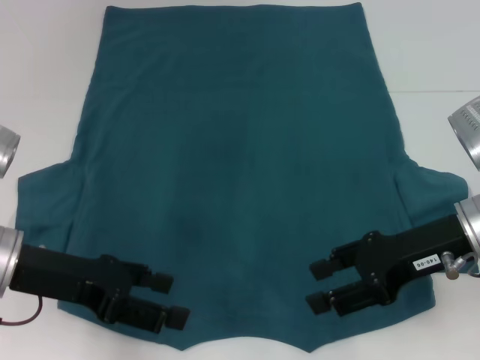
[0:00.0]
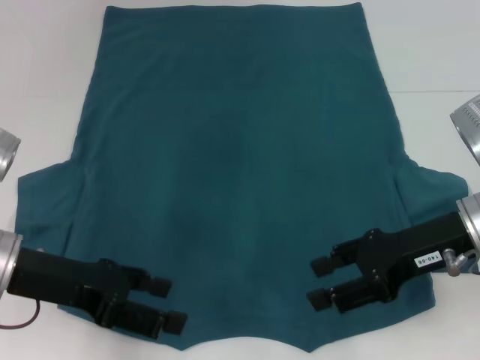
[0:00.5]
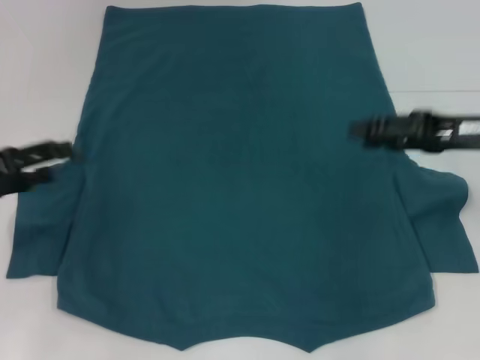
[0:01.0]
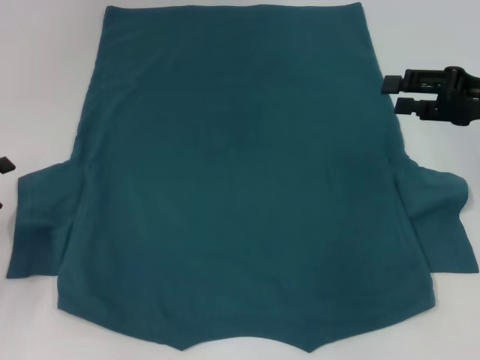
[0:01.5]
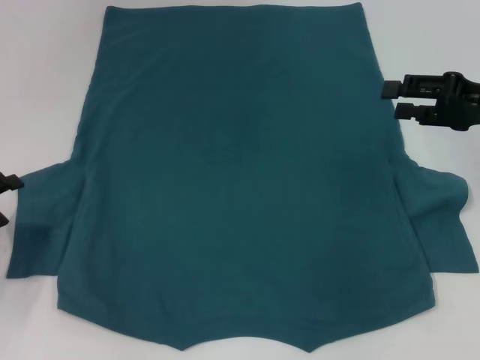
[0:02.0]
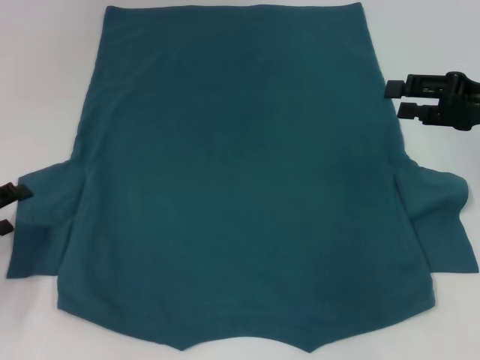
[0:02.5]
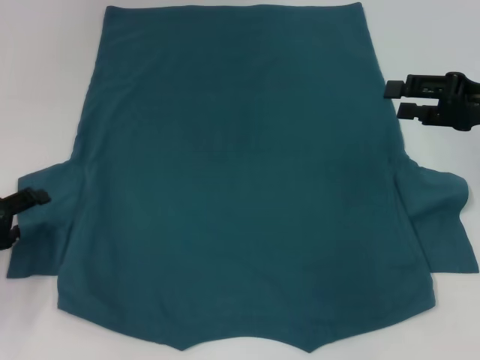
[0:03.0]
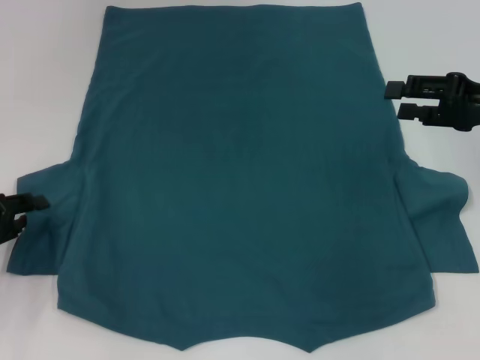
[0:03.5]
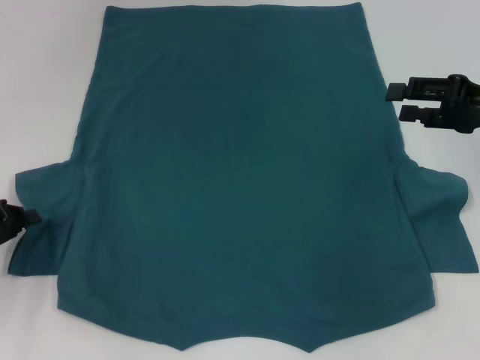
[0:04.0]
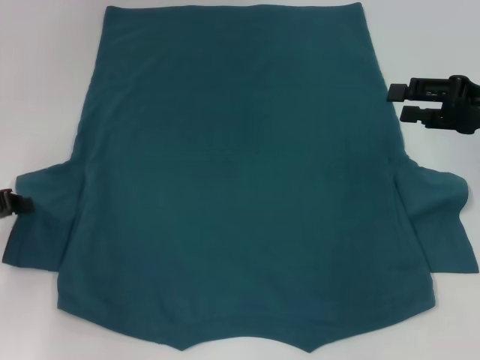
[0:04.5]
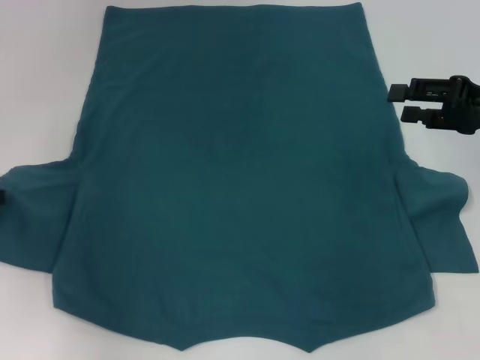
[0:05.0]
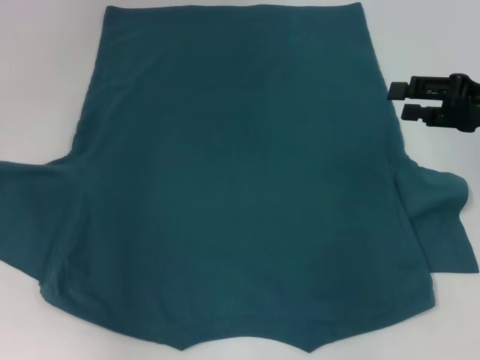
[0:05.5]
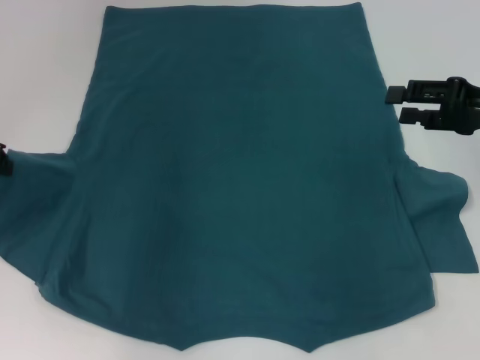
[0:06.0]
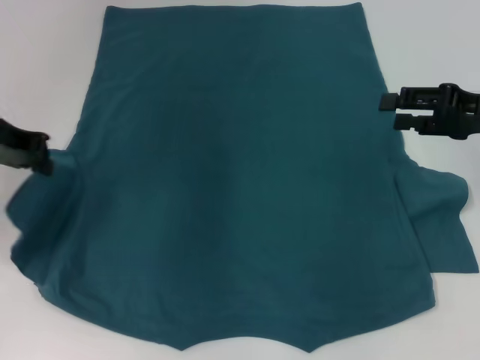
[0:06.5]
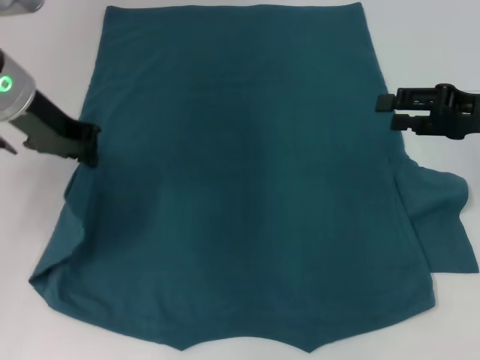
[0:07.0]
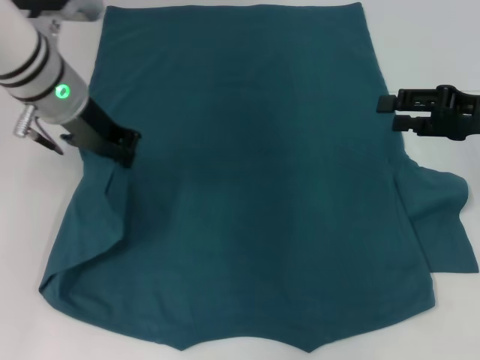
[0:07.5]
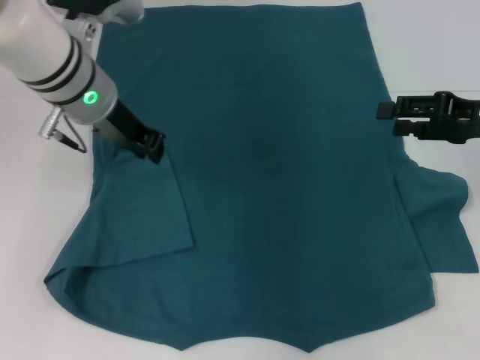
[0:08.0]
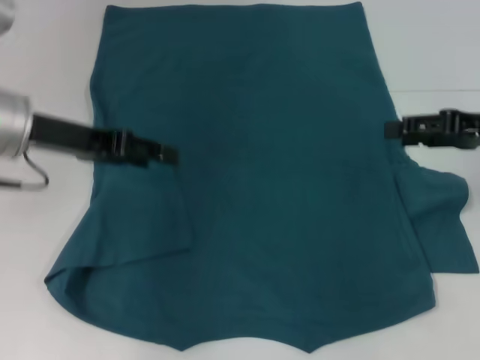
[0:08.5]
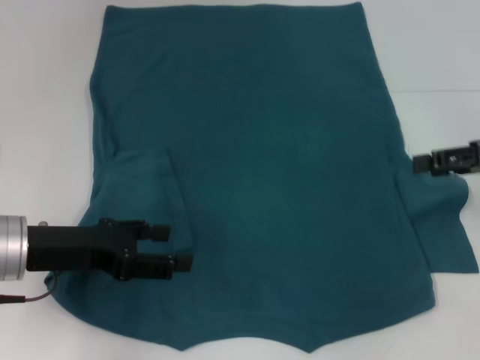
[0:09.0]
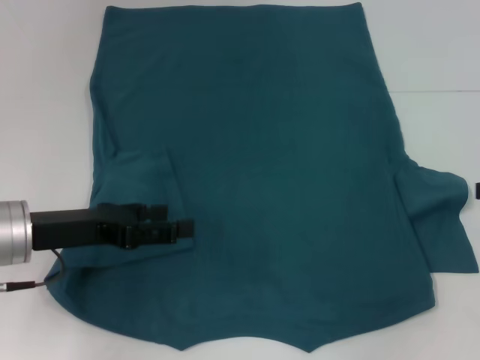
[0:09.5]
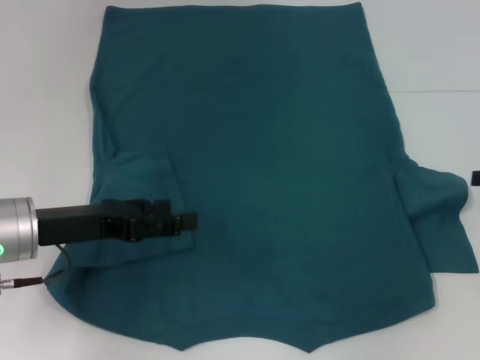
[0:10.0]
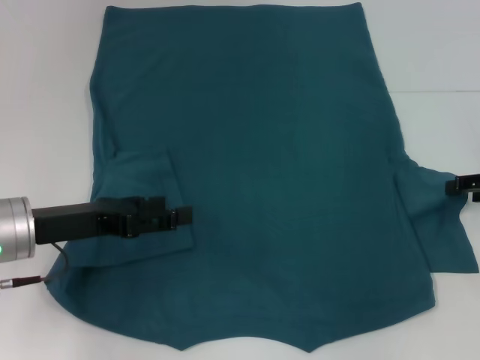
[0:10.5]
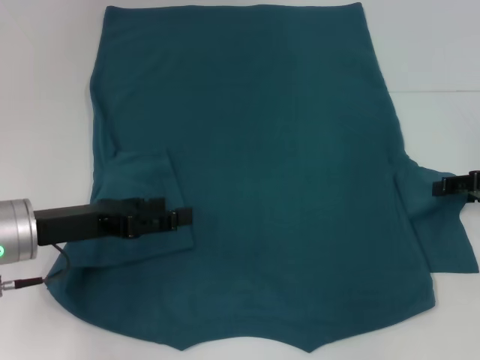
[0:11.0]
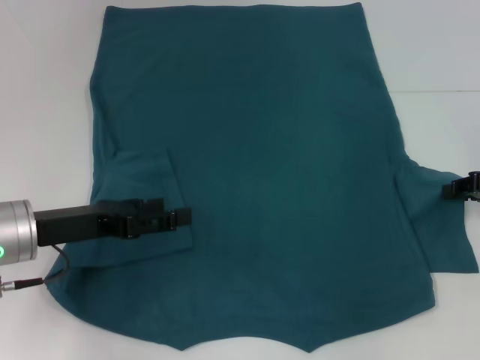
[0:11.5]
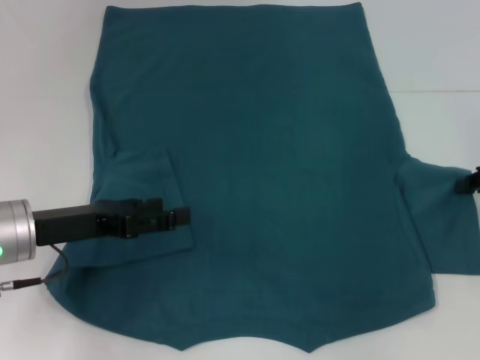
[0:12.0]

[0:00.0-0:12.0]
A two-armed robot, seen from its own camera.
Step, 0:00.0 to 0:07.5: Fold the bottom left sleeve with your left hand.
0:00.0 to 0:02.0: The right gripper goes approximately 10 cm to the right and forward; the left gripper heads to the left and downward, covering about 15 cm.
0:02.0 to 0:04.0: The left gripper closes up.
0:04.0 to 0:06.0: The left gripper moves upward and forward, approximately 15 cm.
0:06.0 to 0:08.0: The left gripper heads to the right, covering approximately 15 cm.
0:08.0 to 0:10.0: The right gripper heads to the right, covering approximately 10 cm; the left gripper goes about 15 cm backward, downward and to the left, and opens.
0:10.0 to 0:12.0: The right gripper closes.

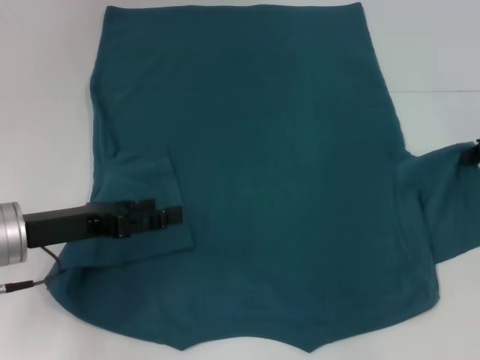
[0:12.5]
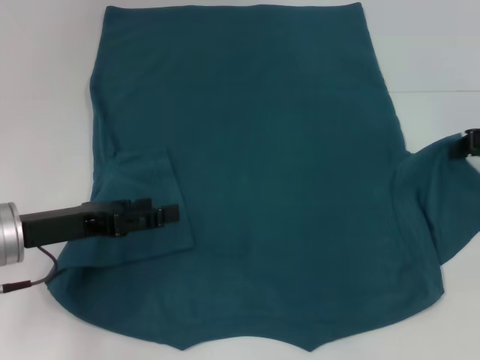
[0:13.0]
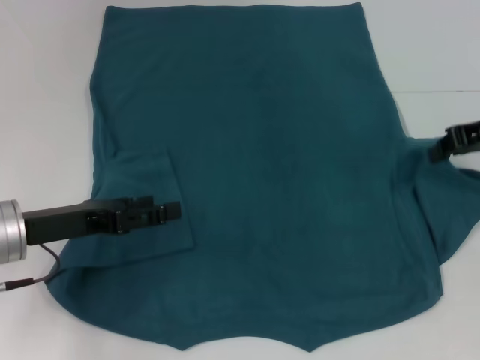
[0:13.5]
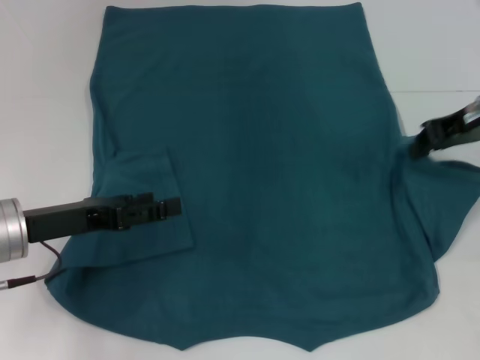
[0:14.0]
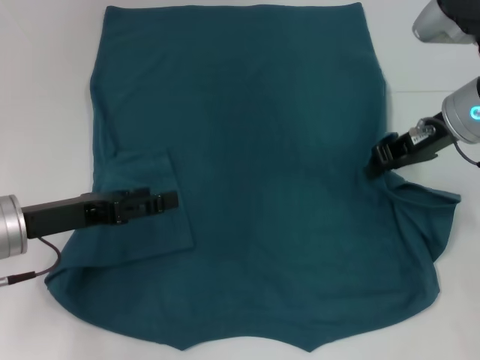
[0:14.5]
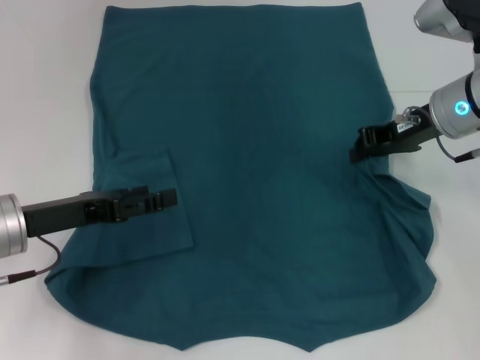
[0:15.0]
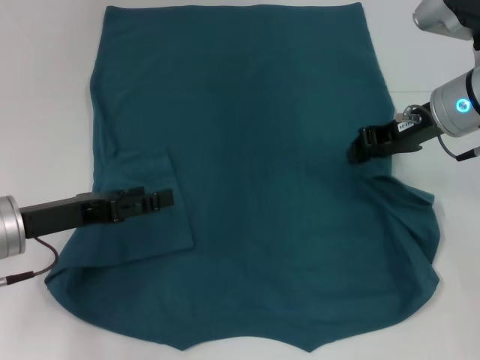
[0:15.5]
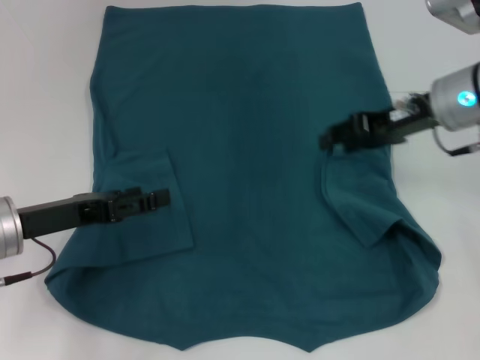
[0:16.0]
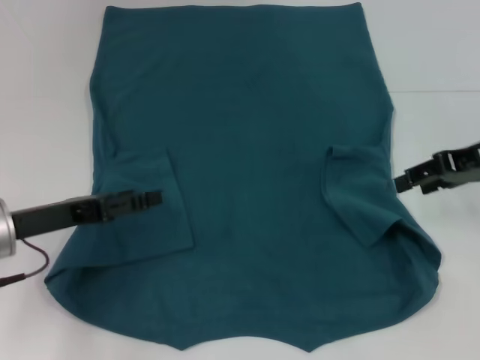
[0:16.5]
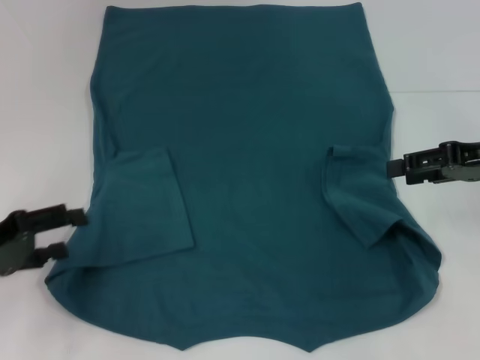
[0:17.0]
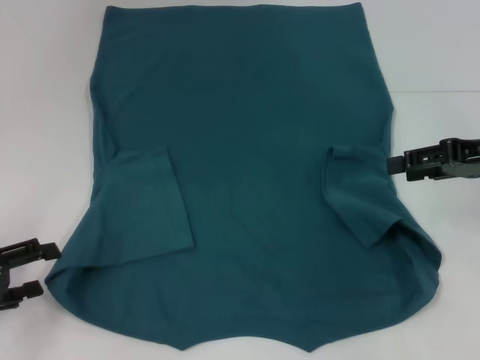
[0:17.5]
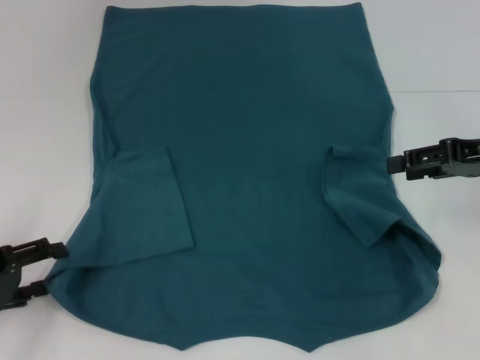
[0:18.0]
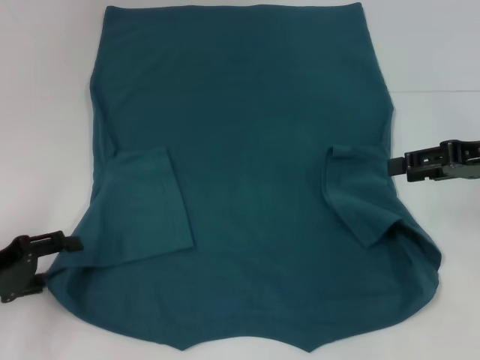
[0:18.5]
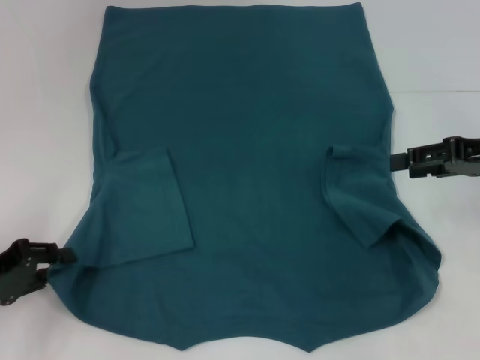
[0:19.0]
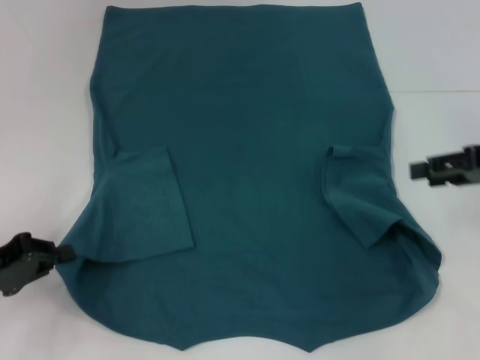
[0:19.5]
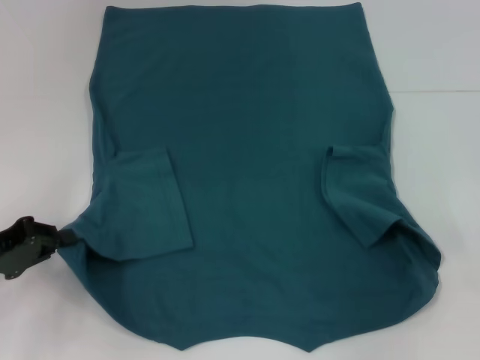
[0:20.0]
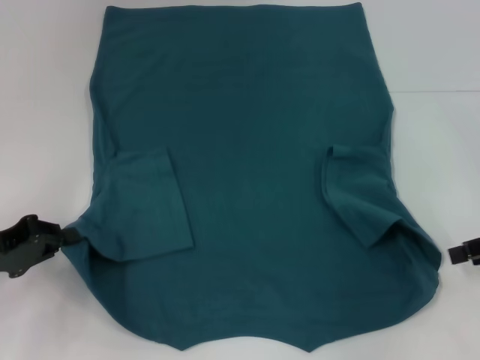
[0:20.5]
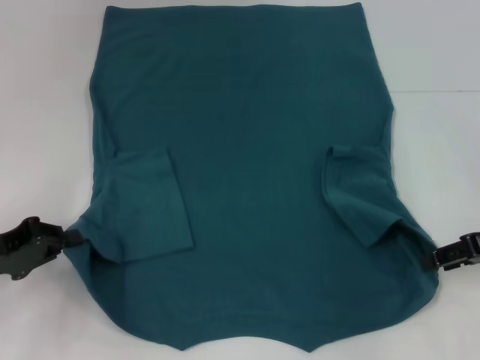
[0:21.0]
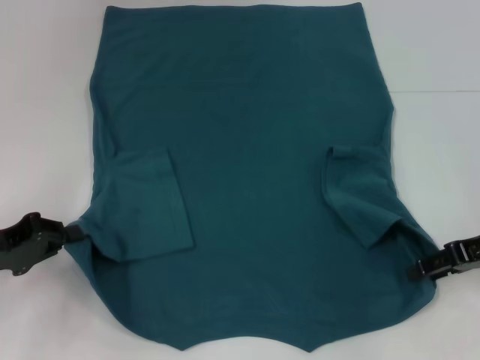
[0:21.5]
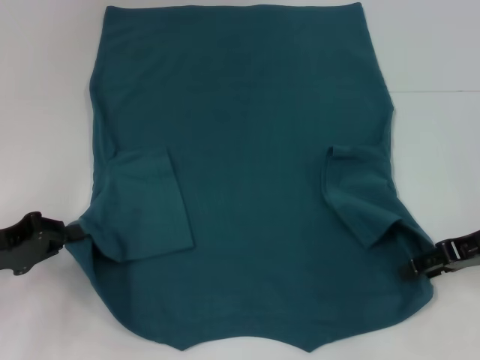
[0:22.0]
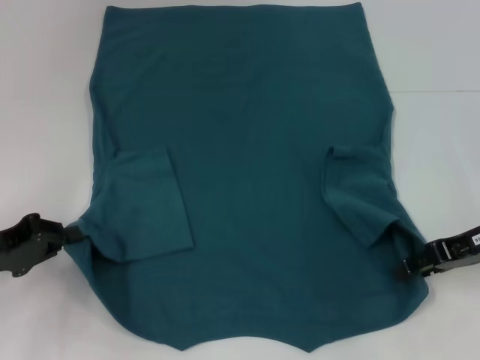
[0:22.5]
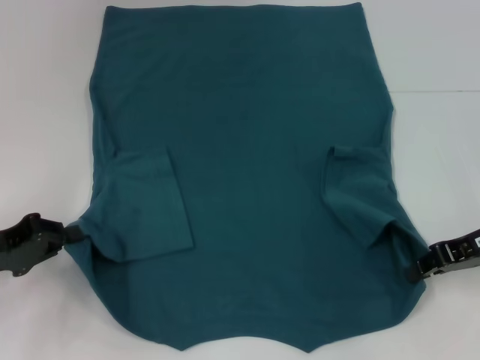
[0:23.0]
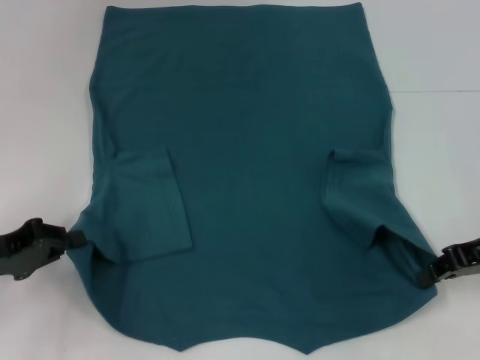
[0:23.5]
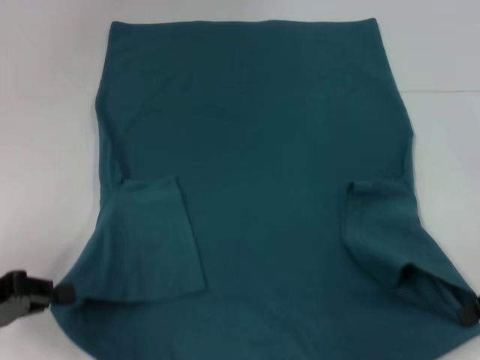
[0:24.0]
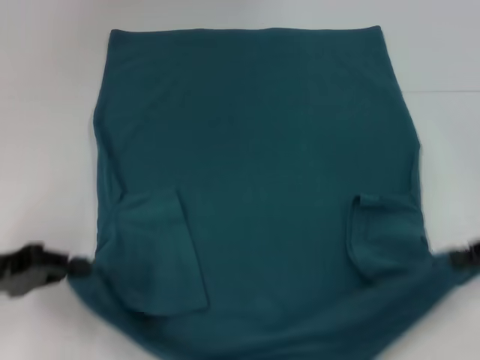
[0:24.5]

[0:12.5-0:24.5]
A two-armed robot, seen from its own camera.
Step, 0:12.5 to 0:15.5: Fold the bottom right sleeve to the right.
Step, 0:16.0 to 0:19.0: Grab the bottom left corner with your left hand.
Step, 0:19.5 to 0:22.5: Grab the bottom right corner with your right hand.
0:12.5 to 0:14.5: The right gripper goes approximately 10 cm to the left.
0:14.5 to 0:16.5: The right gripper moves to the right, about 5 cm, and opens up.
0:16.5 to 0:18.5: The left gripper heads to the left, covering some 5 cm.
0:18.5 to 0:20.5: The left gripper closes up; the right gripper changes place by roughly 5 cm.
0:20.5 to 0:22.5: The right gripper travels to the left by some 5 cm.
0:22.5 to 0:24.5: The right gripper is displaced to the right by some 5 cm, and closes.

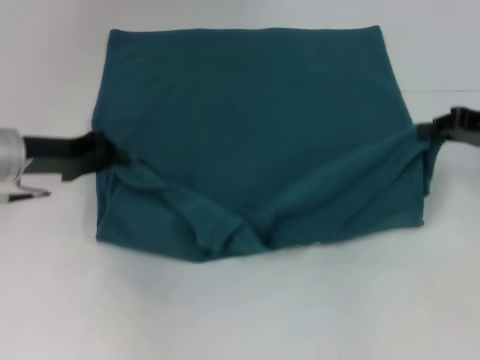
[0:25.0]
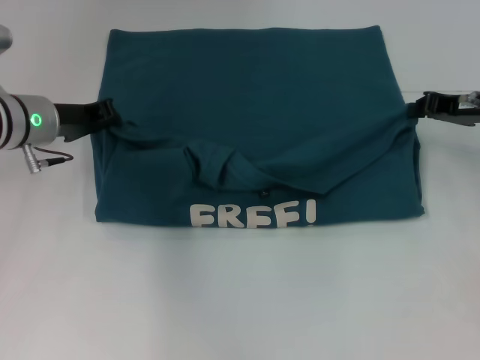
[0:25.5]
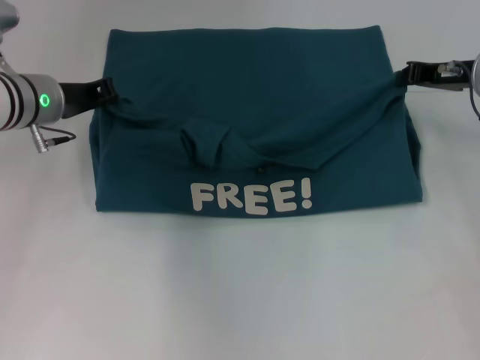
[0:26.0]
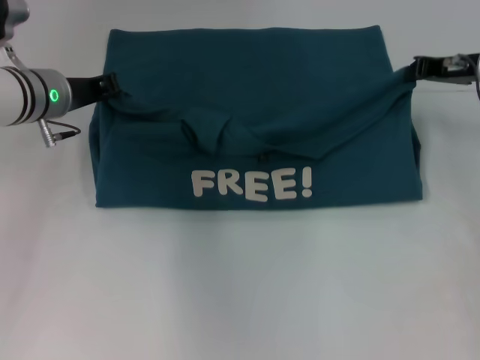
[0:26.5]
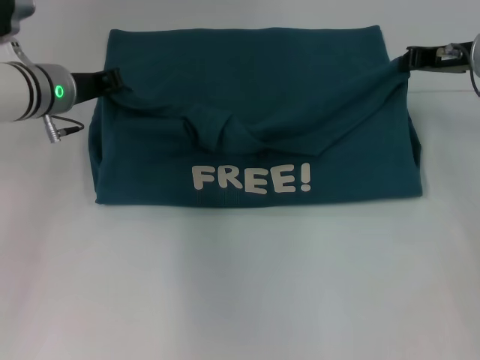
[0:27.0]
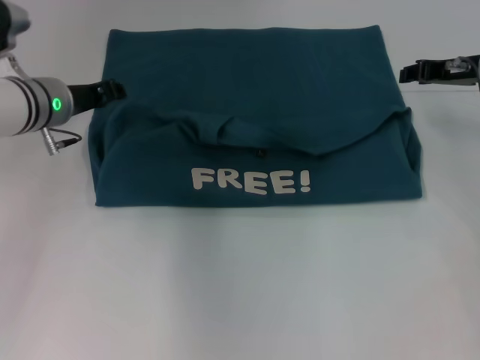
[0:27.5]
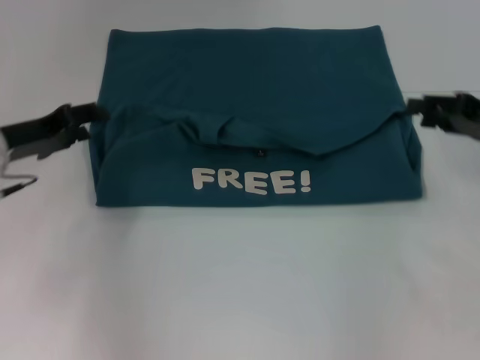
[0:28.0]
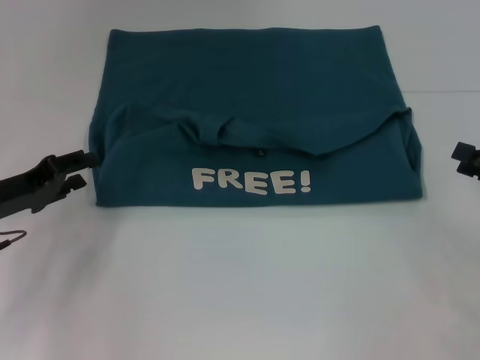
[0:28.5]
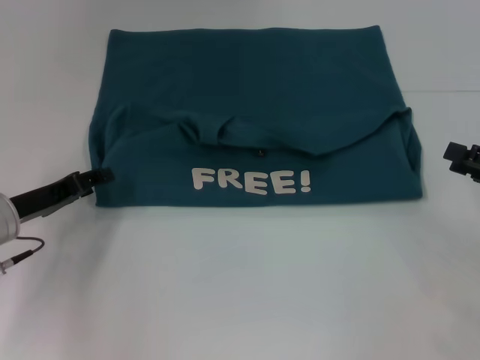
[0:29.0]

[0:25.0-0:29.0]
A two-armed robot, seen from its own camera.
Step, 0:25.0 to 0:27.0: Fold the clothes to the left.
Step, 0:25.0 to 0:27.0: Fold the clothes to the right.
0:25.0 to 0:27.0: The left gripper travels forward and to the right by about 10 cm. The right gripper goes about 10 cm forward and to the left.
0:27.0 to 0:29.0: The right gripper moves backward and to the right, roughly 20 cm, and opens; the left gripper goes approximately 15 cm backward, downward and to the left, and opens its fingers.
